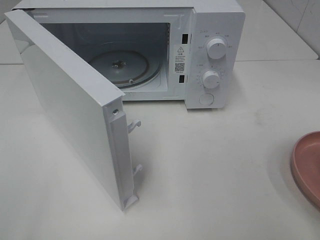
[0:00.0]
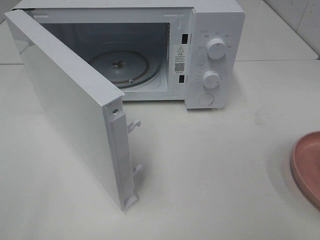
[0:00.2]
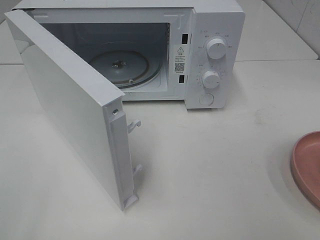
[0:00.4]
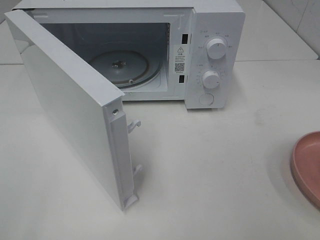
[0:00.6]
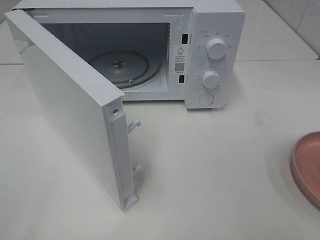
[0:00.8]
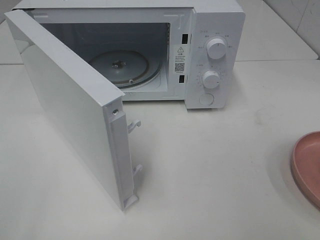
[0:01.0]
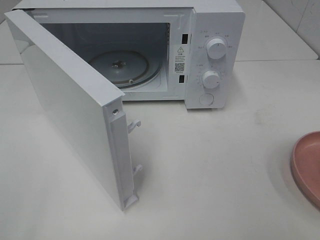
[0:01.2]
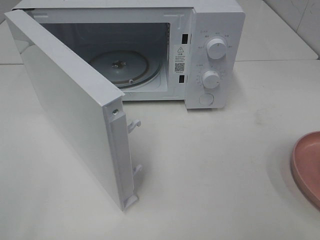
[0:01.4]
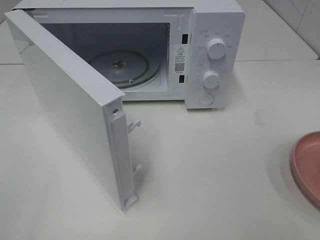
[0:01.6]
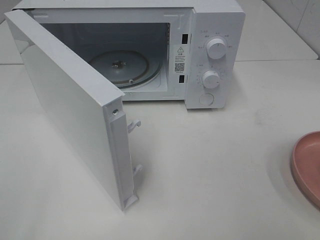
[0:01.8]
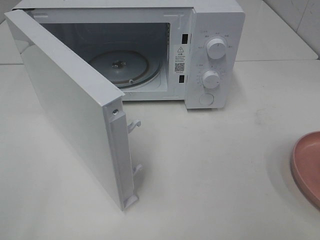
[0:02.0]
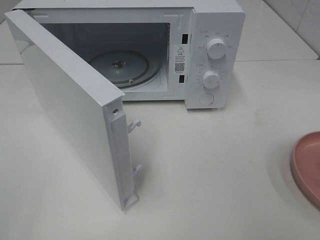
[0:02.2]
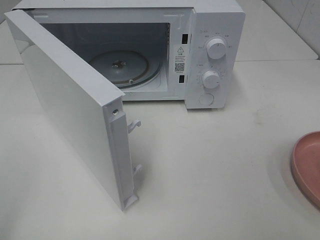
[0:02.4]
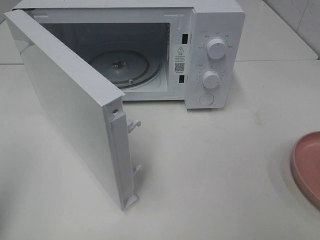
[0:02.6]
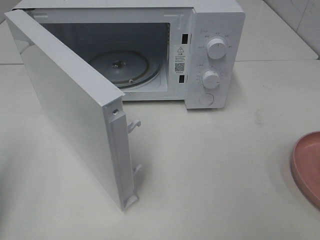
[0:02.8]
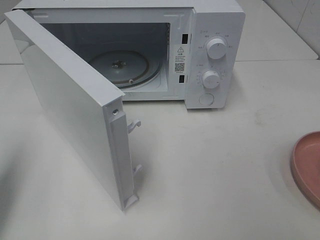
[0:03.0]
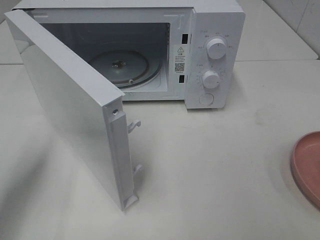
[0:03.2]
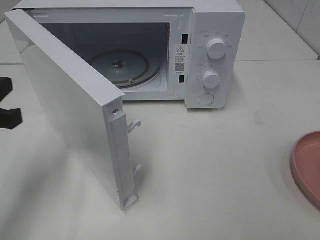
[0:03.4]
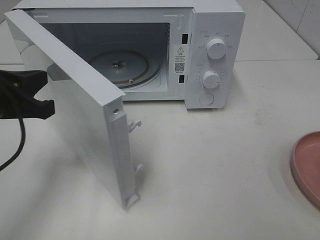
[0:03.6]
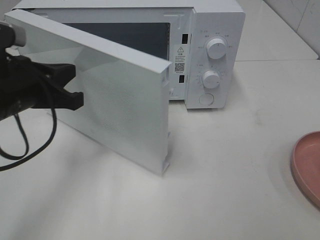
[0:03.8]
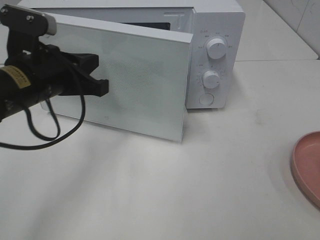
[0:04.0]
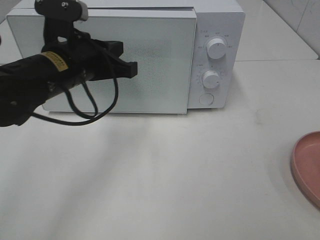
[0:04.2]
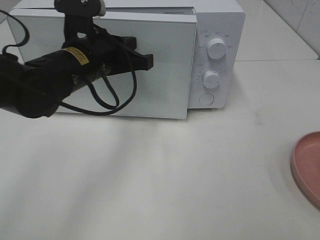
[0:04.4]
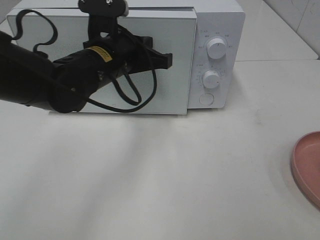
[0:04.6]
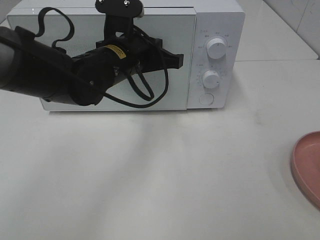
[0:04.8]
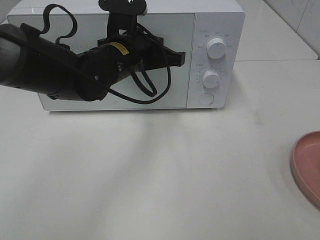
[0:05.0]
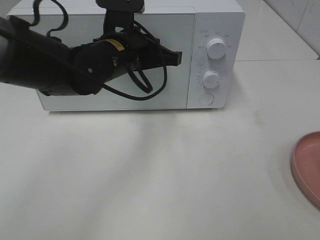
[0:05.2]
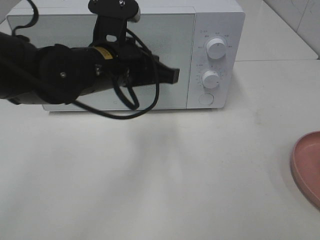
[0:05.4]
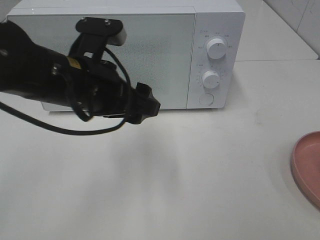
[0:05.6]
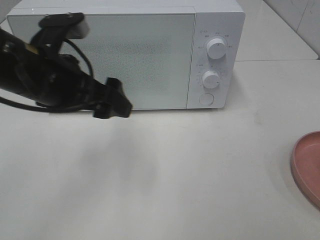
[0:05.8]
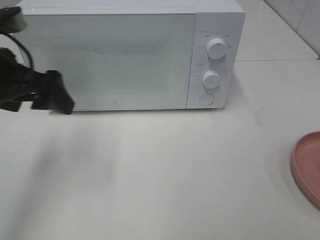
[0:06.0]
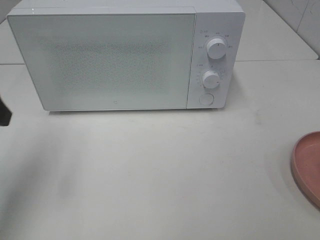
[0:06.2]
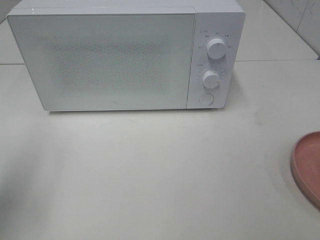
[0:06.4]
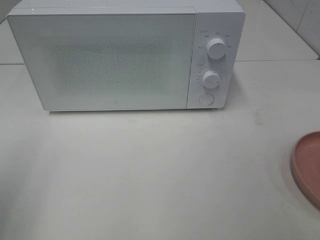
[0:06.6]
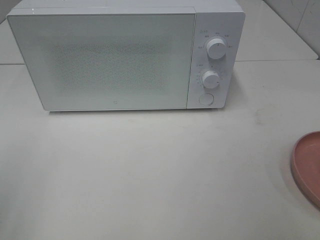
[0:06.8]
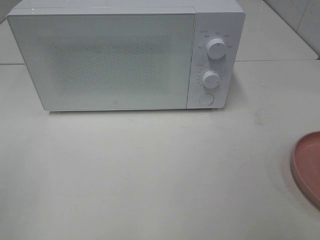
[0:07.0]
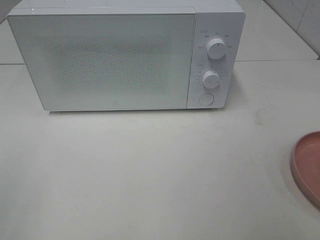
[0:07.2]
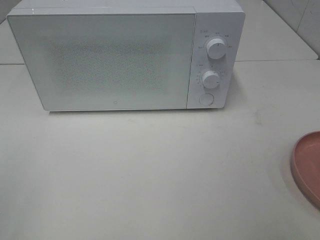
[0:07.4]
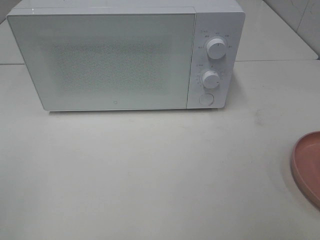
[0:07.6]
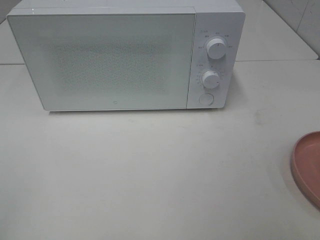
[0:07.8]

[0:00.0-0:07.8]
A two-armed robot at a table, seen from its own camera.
Task of the whole recording: Heat the burger.
Step, 0:00.0 to 0:05.2: Left hand: close the microwave door.
0:01.6 to 0:03.2: The left gripper is displaced forward by some 20 cm, and closes up.
0:03.2 to 0:04.6: The left gripper goes about 25 cm to the right and forward.
0:04.6 to 0:06.2: The left gripper shifts about 25 cm to the left and backward, and opens its fingers.
0:06.2 to 0:07.8: The left gripper travels backward by approximately 20 cm.

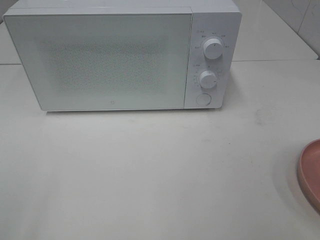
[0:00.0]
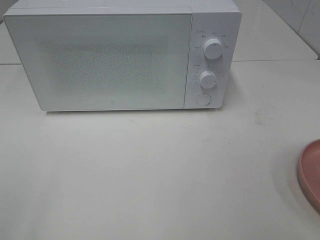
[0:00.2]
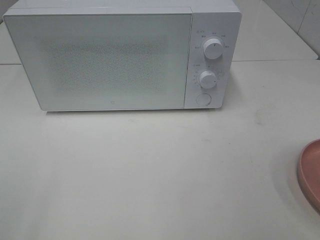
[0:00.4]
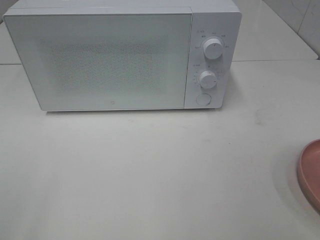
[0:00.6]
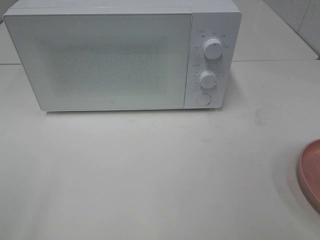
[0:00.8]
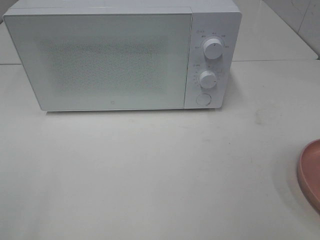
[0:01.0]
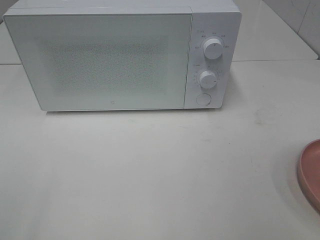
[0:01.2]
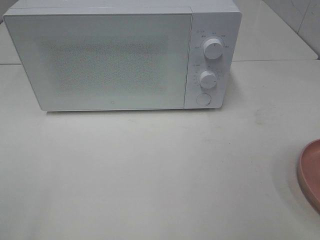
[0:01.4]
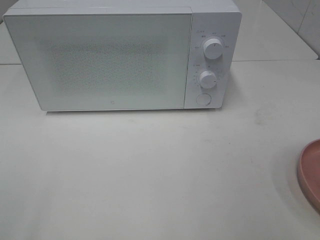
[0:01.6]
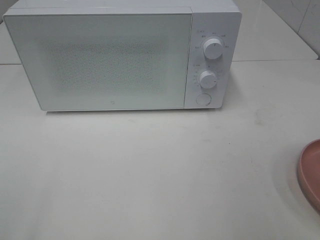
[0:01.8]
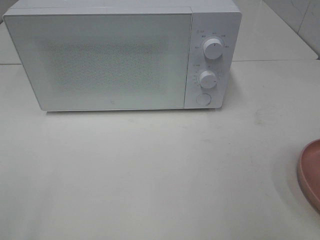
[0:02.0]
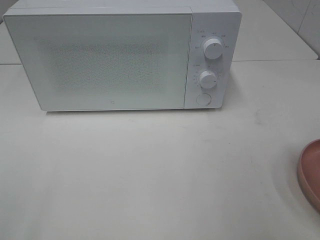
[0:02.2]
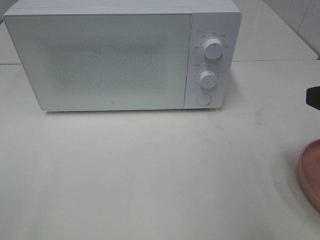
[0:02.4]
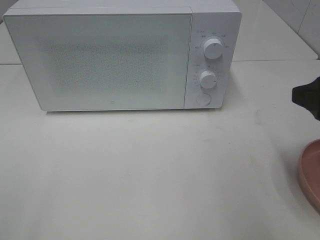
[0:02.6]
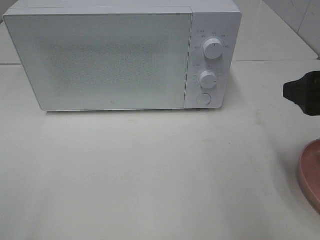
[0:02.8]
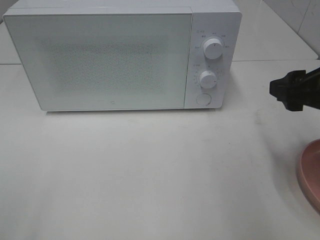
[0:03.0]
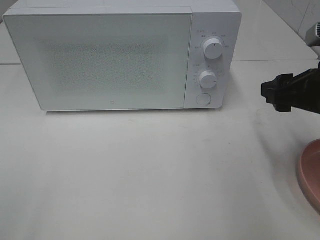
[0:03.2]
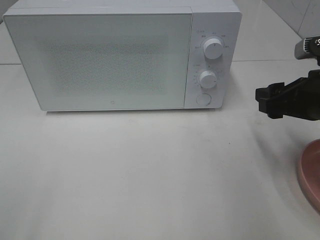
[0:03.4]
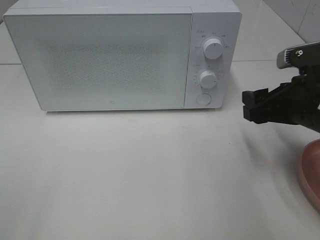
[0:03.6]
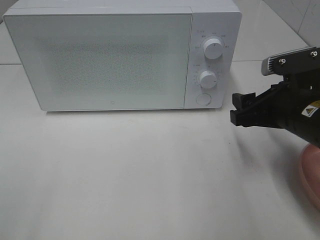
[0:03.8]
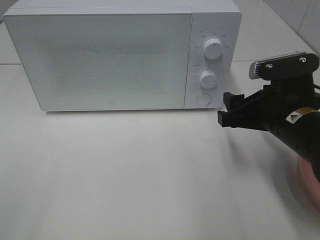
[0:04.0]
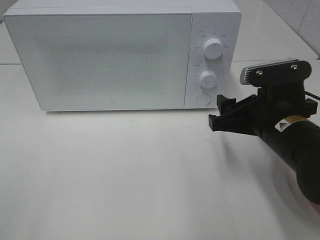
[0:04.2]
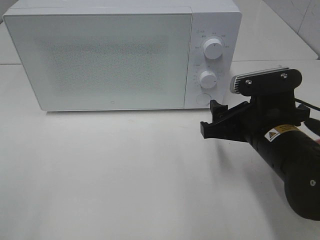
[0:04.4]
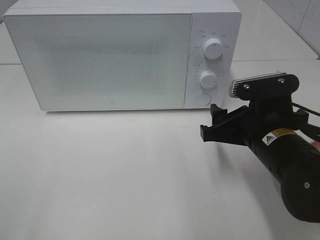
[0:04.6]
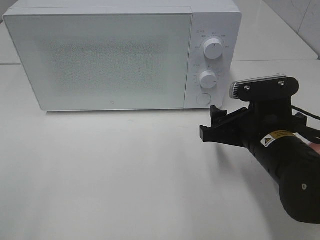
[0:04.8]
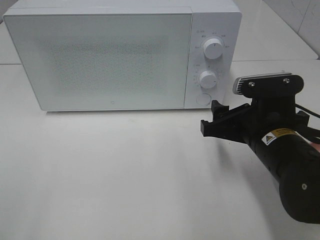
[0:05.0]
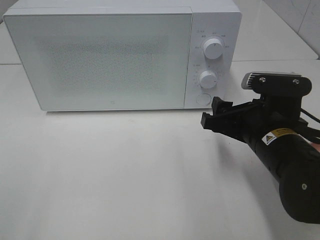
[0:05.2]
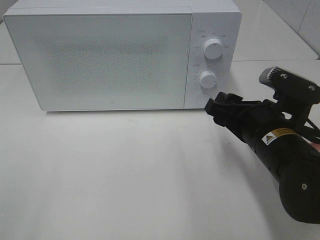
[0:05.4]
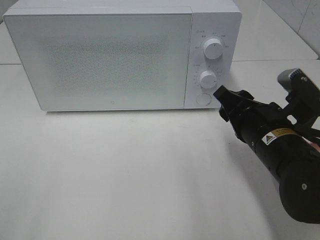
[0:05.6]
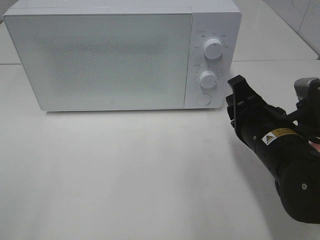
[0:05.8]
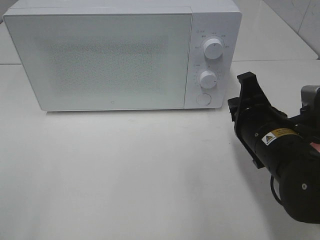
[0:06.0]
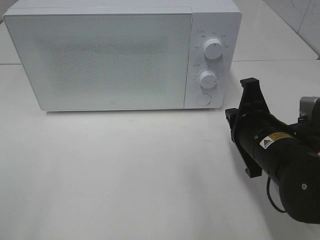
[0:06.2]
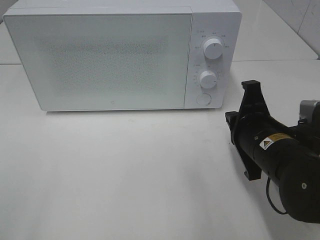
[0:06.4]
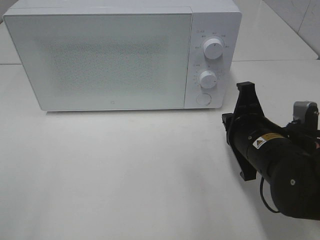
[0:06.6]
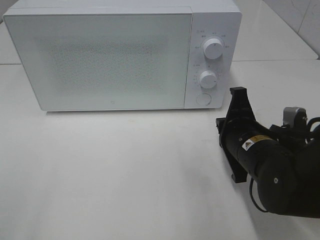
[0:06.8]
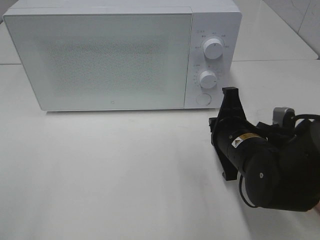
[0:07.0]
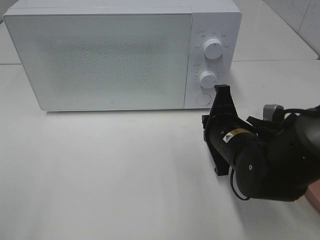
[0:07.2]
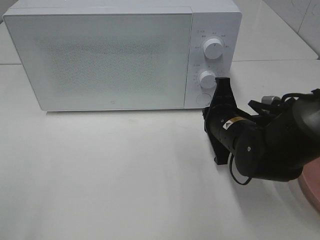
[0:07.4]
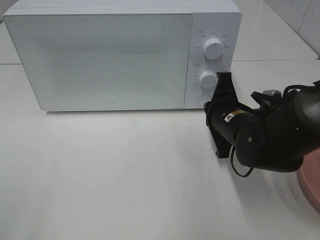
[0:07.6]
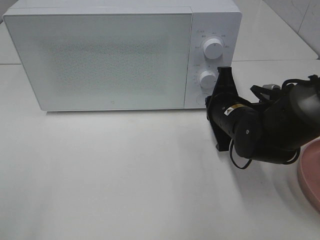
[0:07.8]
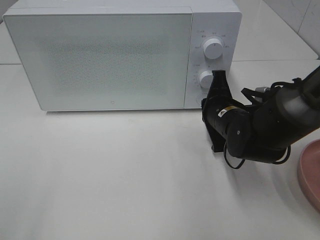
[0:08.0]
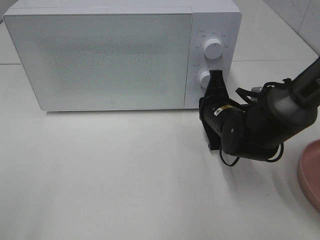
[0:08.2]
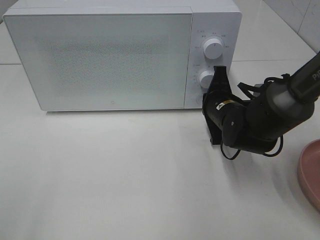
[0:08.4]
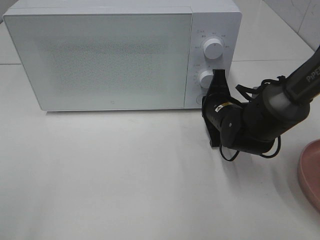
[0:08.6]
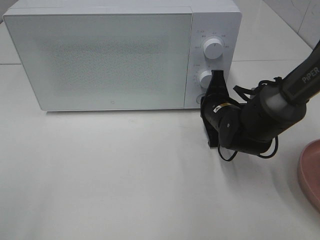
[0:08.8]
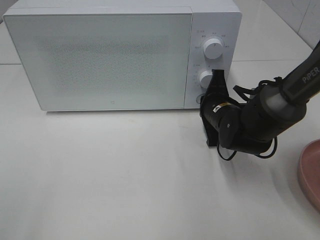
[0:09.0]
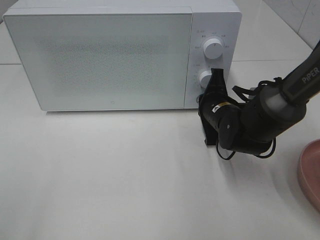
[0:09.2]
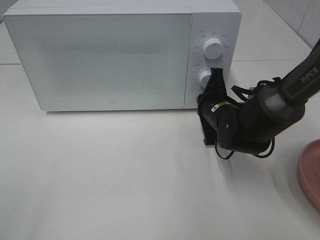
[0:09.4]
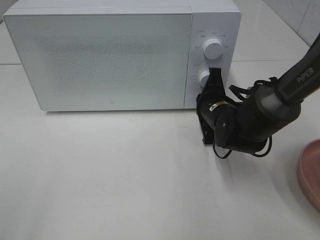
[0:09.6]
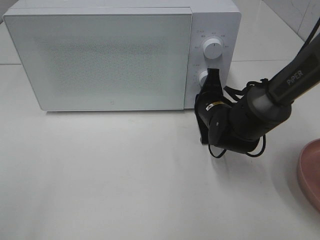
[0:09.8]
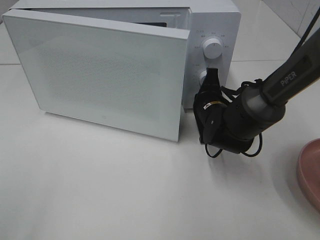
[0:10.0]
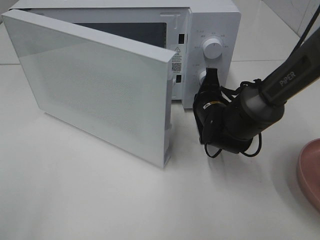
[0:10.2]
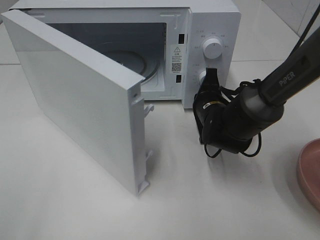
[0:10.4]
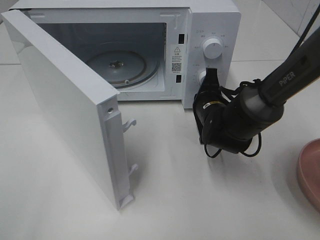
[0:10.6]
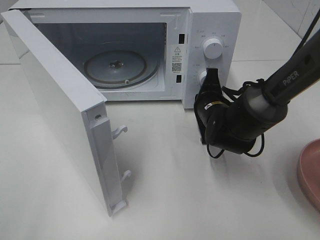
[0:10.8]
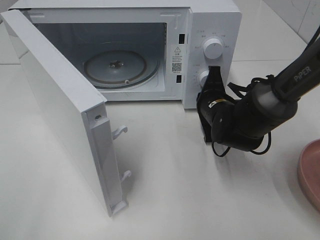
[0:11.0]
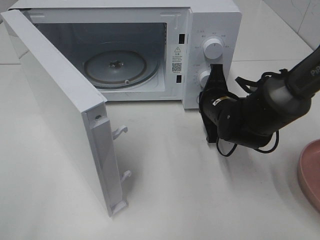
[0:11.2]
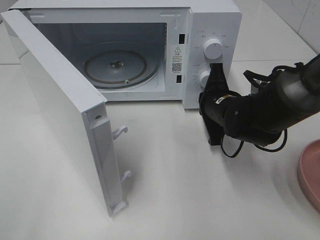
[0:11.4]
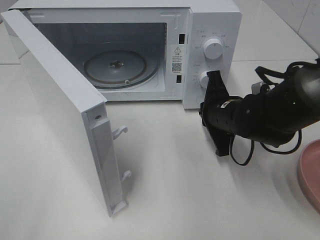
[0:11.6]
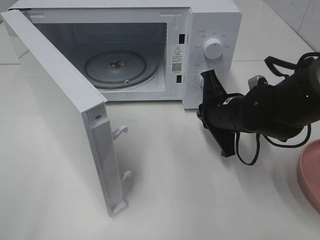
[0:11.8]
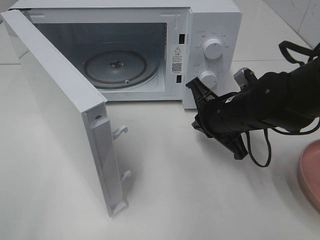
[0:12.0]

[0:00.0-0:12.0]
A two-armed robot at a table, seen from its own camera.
Task of the whole recording: Heat the burger.
Step, 0:00.0 to 0:11.2: Right hand: press the switch.
0:01.6 to 0:03.0: The right gripper is displaced forward and downward by approximately 15 cm.
0:03.0 to 0:04.4: The right gripper heads to the left and downward, covering approximately 10 cm.
0:04.4 to 0:06.0: The right gripper closes up.
0:06.0 to 0:07.6: The right gripper travels forward by approximately 5 cm.
0:07.6 to 0:09.0: The right gripper heads forward, covering roughly 5 cm.
0:10.4 to 0:12.0: The right gripper heads backward and upward, covering approximately 10 cm.

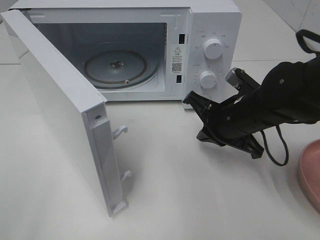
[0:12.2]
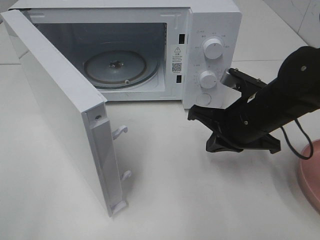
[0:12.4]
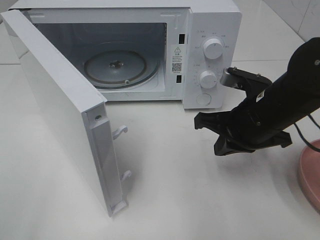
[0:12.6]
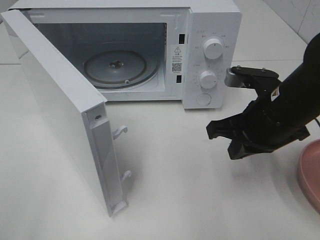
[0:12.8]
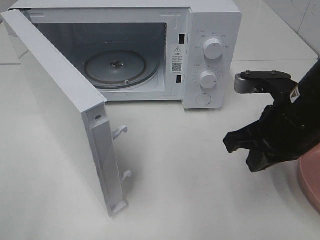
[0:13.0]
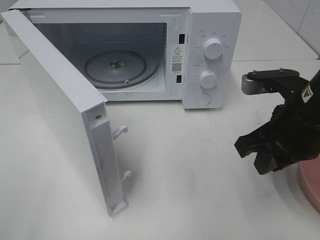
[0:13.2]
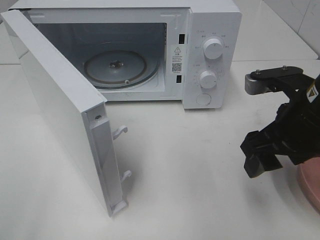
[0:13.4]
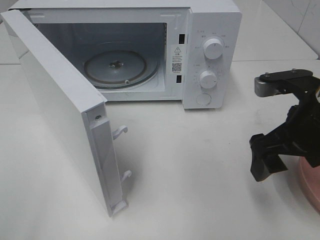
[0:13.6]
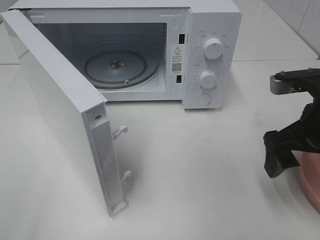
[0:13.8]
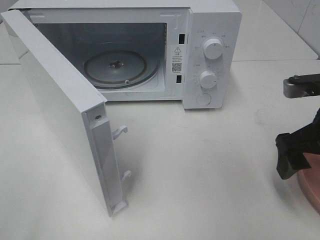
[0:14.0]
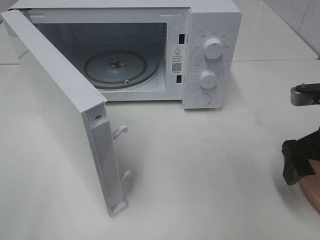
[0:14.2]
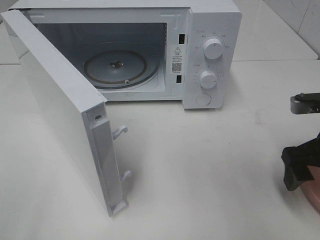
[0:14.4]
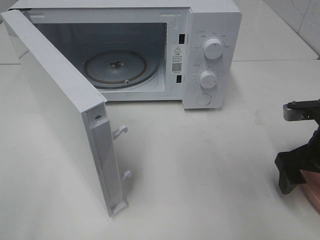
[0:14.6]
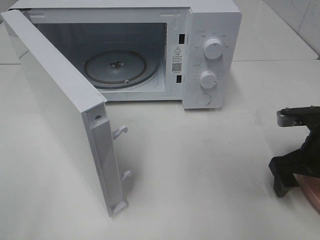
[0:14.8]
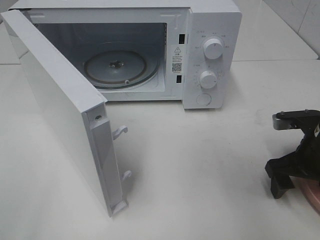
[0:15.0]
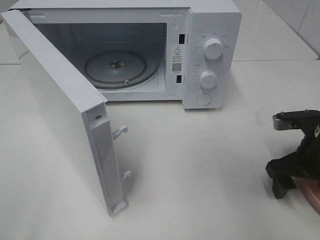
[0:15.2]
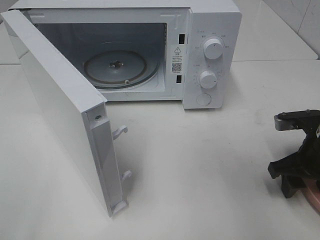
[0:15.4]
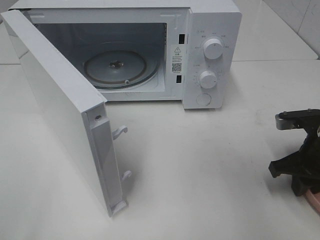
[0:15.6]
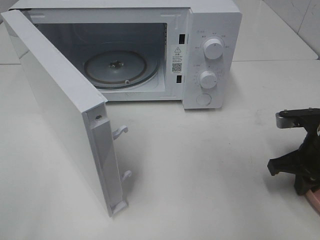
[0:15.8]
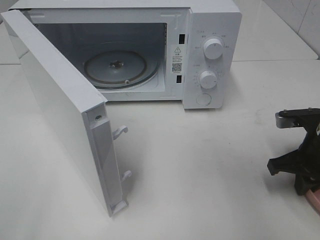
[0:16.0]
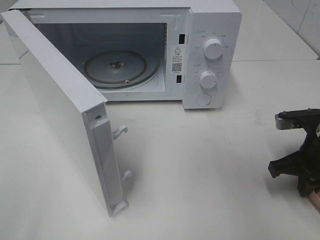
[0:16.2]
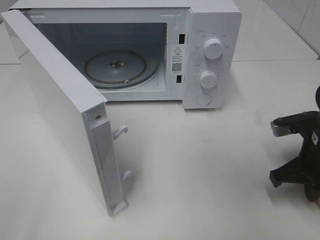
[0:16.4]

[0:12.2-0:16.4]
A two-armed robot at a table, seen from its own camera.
Task of the whole recording: Heat the burger.
Step, 0:12.2 to 0:16.2: Right hand: grab the plate with the hamburger.
0:12.2 to 0:13.6: The right gripper goes about 10 cm upward, backward and to the right, and opens up.
0:13.6 to 0:15.0: The right gripper moves downward and to the right, approximately 10 cm.
0:15.0 to 0:16.4: The right gripper closes up.
